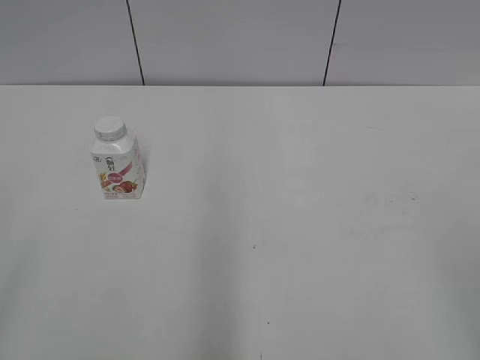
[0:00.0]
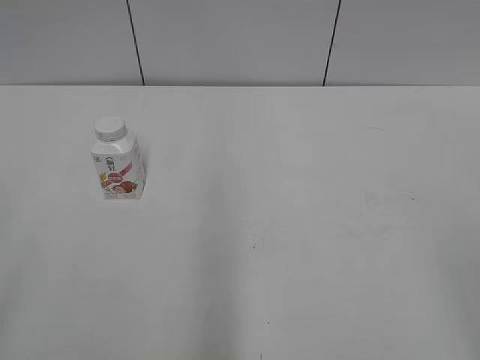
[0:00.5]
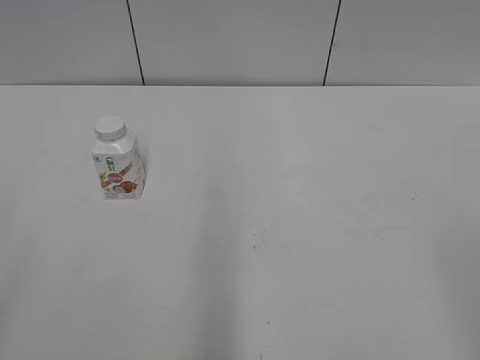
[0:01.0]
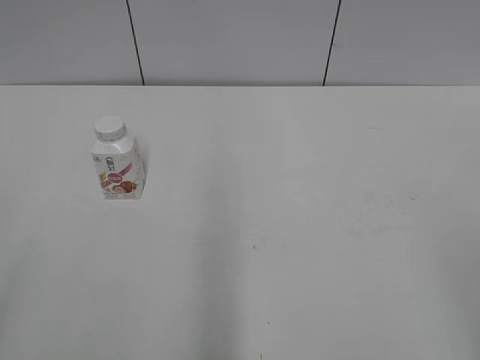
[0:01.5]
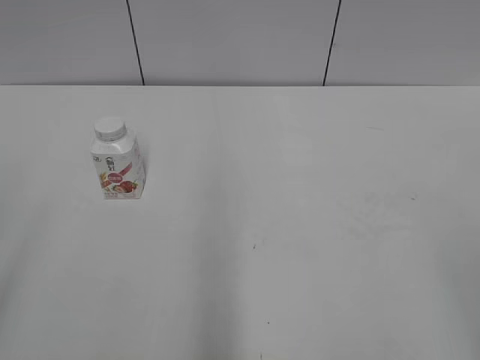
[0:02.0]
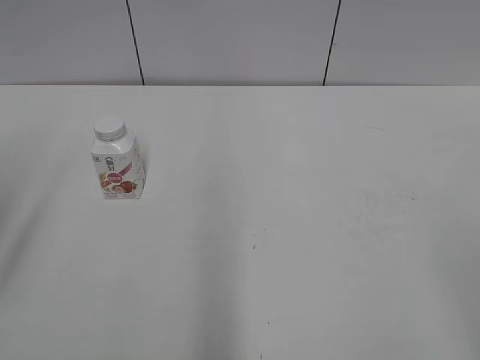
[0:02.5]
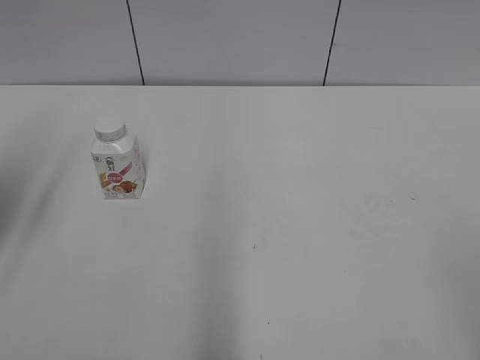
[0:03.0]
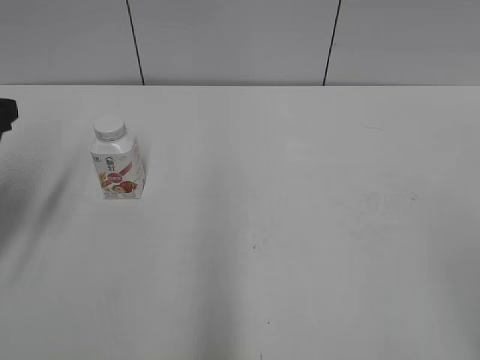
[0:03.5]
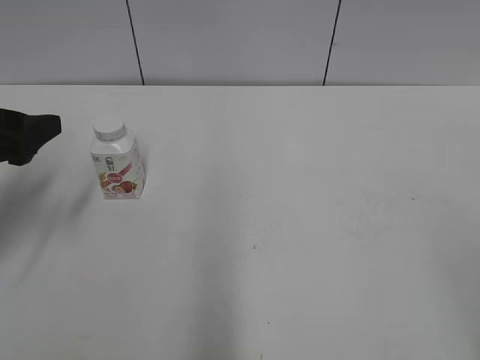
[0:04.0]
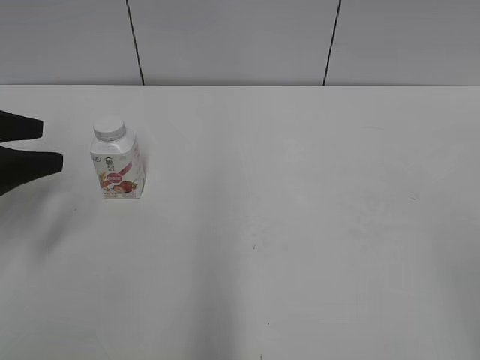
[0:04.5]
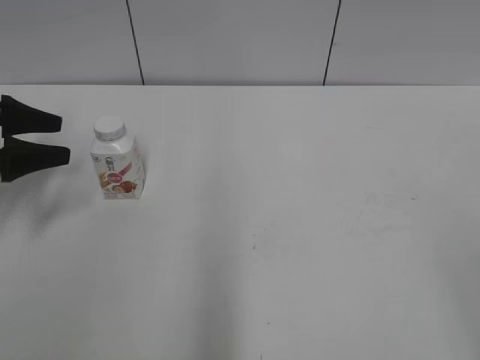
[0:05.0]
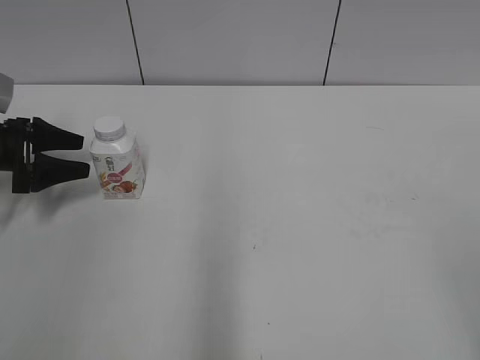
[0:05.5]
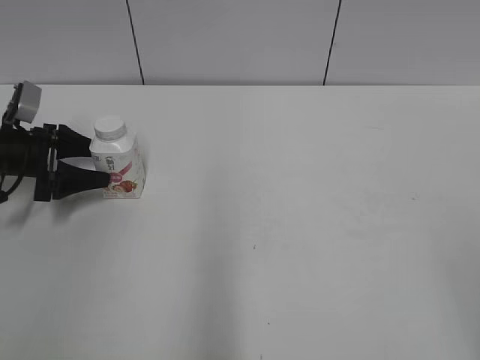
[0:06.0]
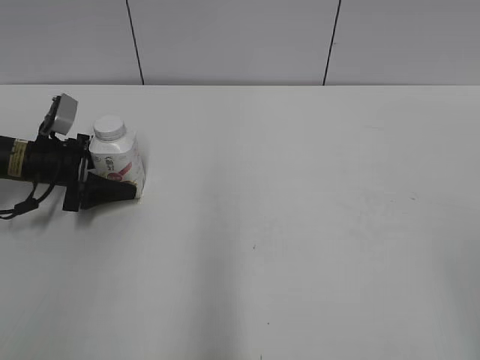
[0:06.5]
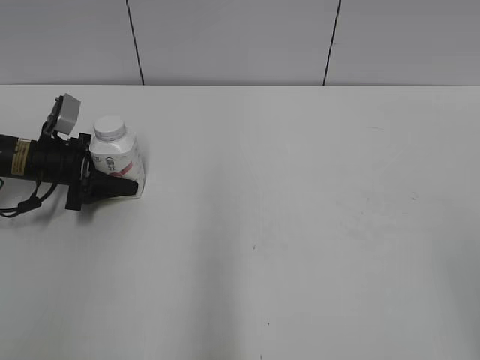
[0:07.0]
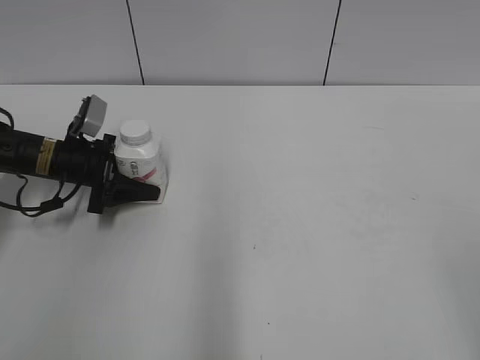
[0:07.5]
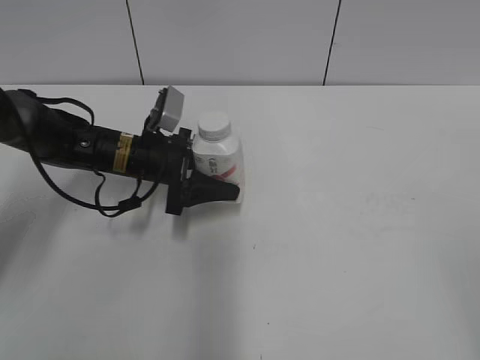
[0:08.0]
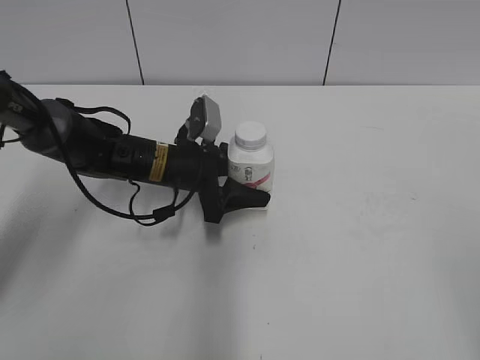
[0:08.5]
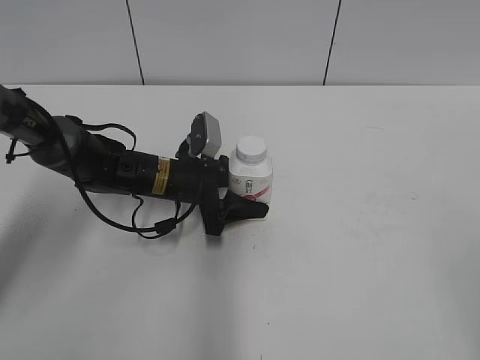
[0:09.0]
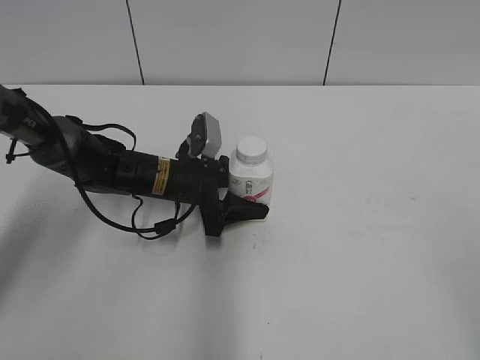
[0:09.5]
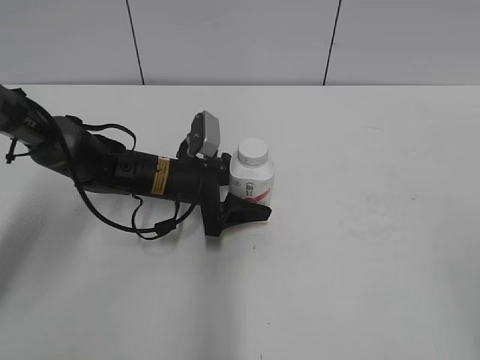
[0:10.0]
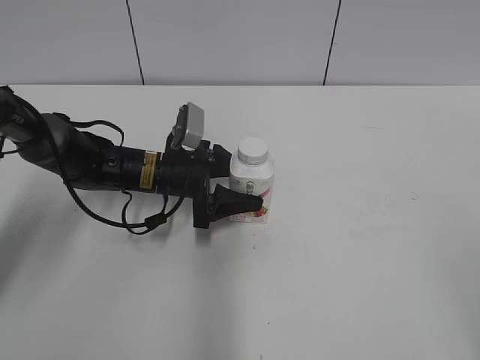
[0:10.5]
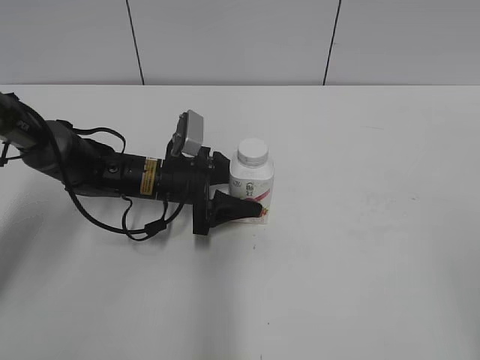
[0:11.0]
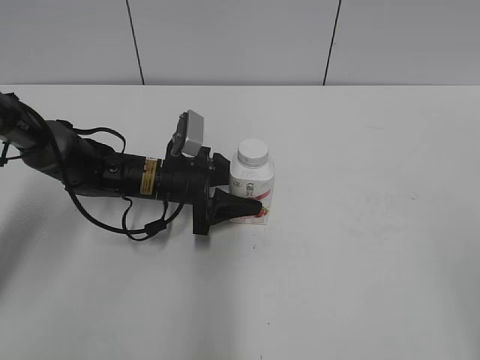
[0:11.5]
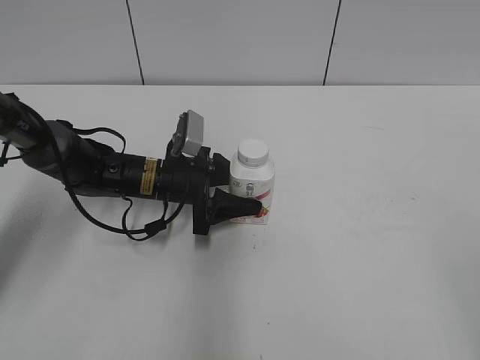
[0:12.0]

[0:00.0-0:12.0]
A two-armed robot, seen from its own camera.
Step, 0:00.0 to 0:07.0: Grasp the bottle and move it to the center of the table with the left gripper.
Step, 0:07.5 to 0:11.0: Lift the bottle and move it to the center of the table with the left gripper.
0:02.0 to 0:04.0: The left gripper is displaced forward and downward by approximately 25 cm.
0:04.0 to 0:06.0: The left gripper moves forward and downward, some 20 cm.
0:06.0 to 0:08.0: The left gripper goes roughly 20 cm to the right, and closes.
0:08.0 to 0:10.0: The left gripper shifts about 5 cm to the right.
0:10.0 to 0:12.0: The left gripper closes.

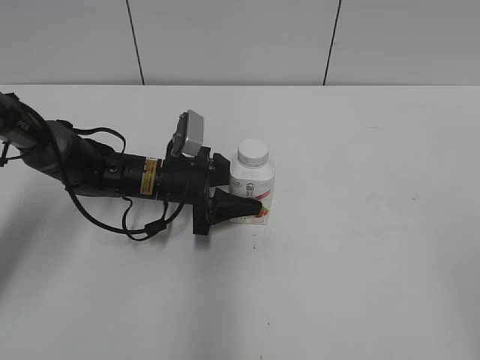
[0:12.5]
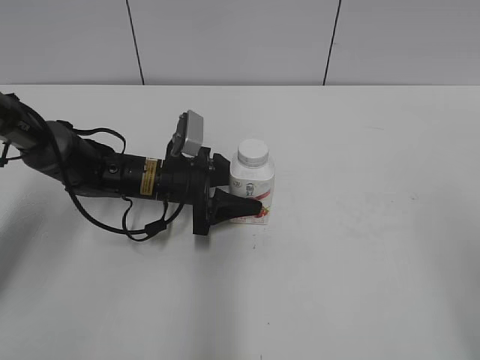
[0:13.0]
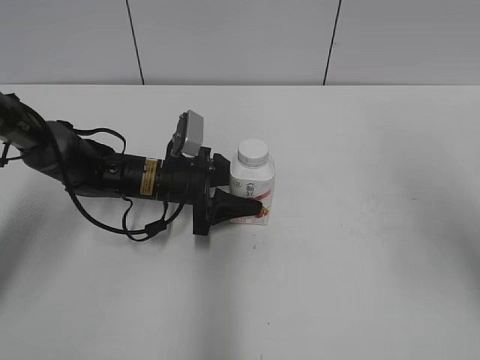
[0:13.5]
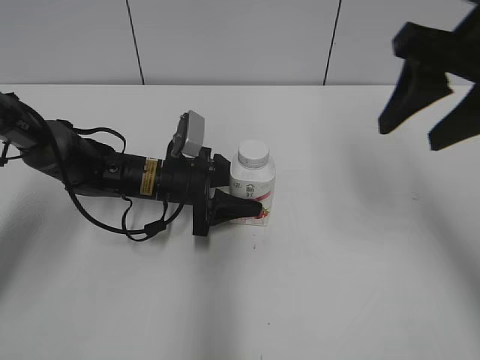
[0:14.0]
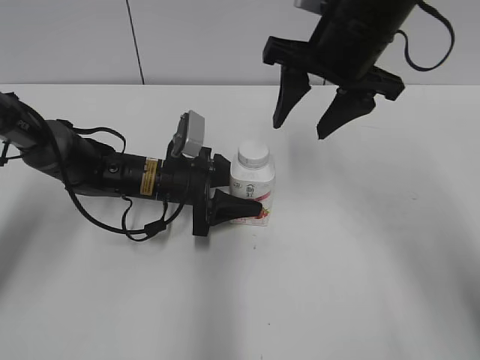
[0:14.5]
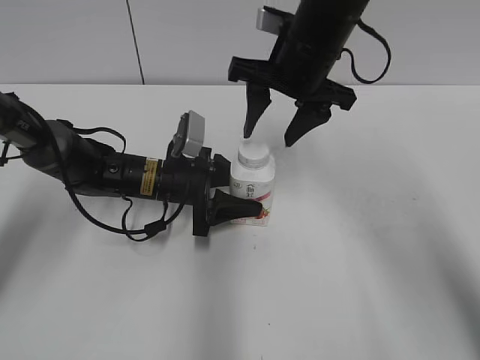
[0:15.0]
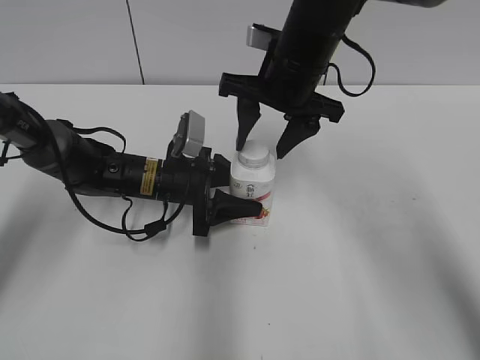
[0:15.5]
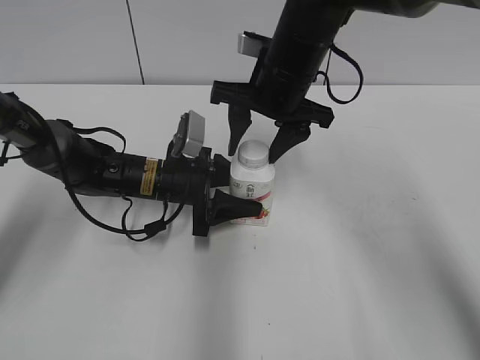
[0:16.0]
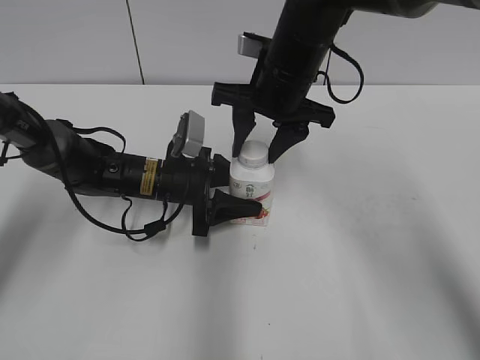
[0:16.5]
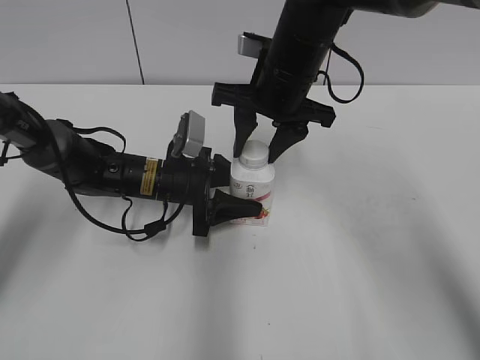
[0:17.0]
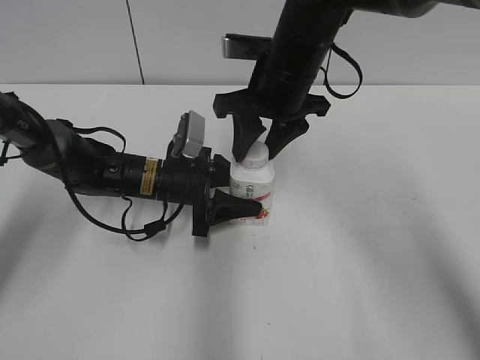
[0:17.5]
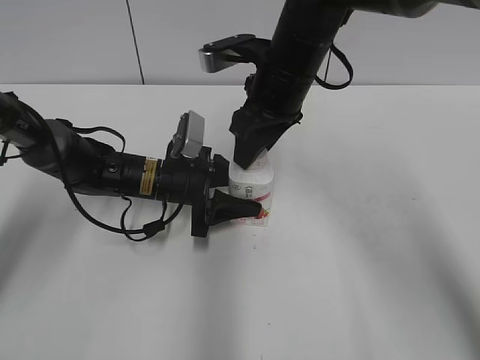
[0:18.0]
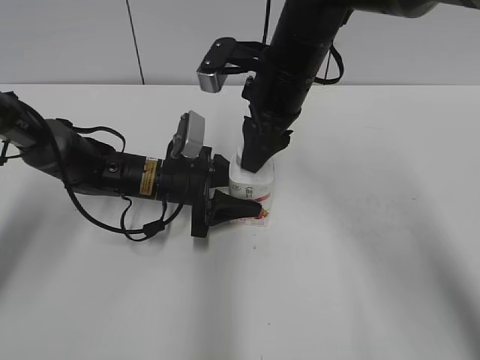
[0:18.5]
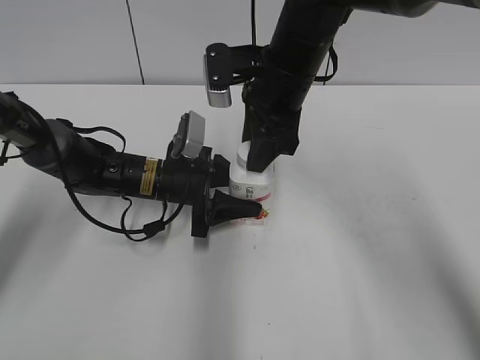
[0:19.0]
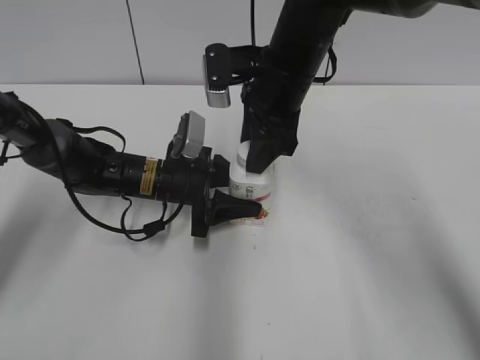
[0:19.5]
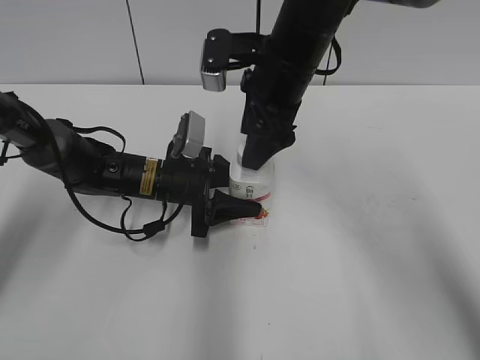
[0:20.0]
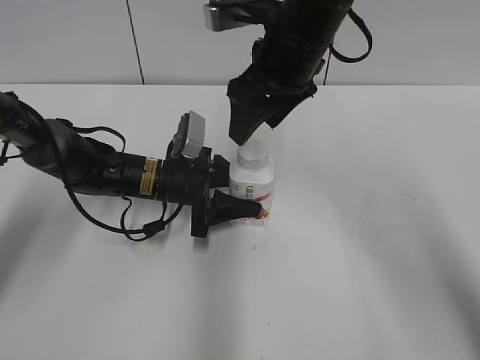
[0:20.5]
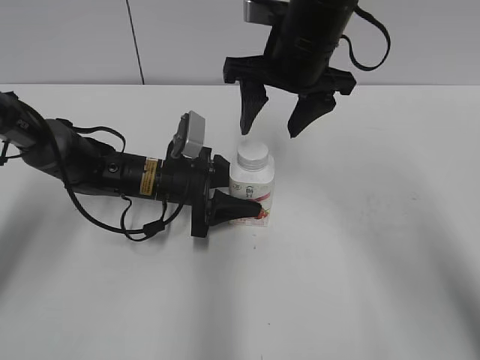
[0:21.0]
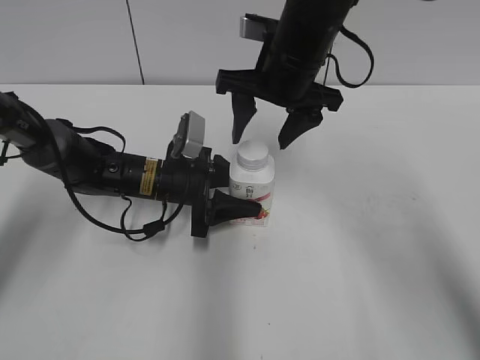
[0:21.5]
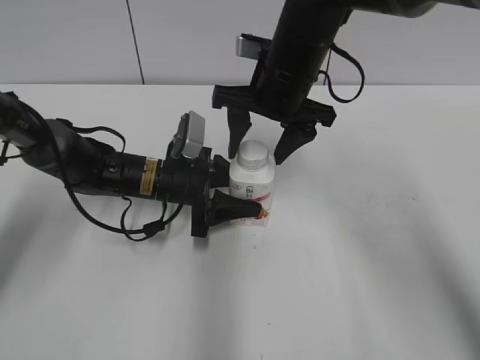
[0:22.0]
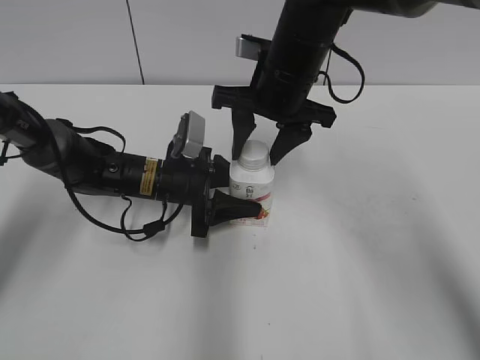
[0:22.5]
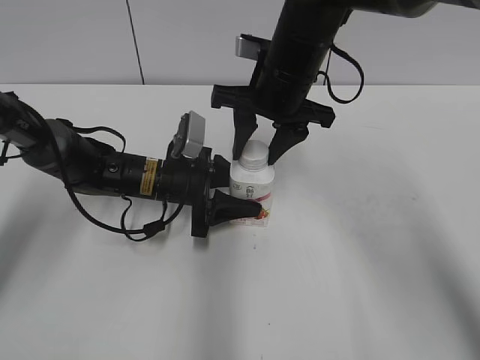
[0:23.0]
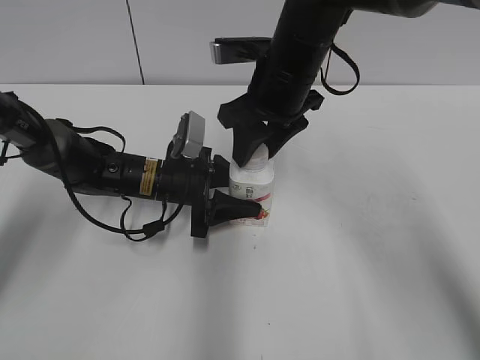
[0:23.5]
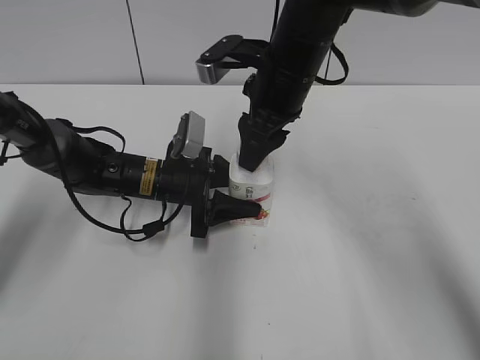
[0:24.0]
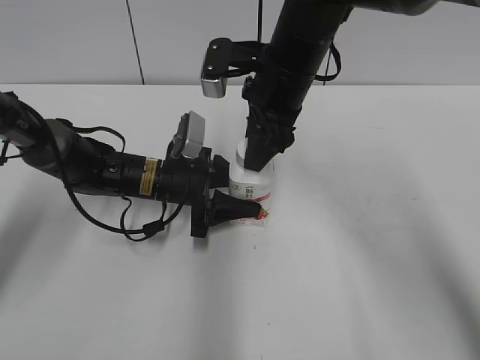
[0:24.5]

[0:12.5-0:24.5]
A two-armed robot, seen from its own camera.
0:12.5 to 0:14.5: The right gripper shifts some 40 cm forward and to the left.
0:14.5 to 0:16.5: The right gripper goes approximately 10 cm downward and to the left, and closes up.
0:18.5 to 0:20.5: The right gripper opens up.
0:20.5 to 0:22.5: The right gripper closes up.
0:22.5 to 0:24.5: The right gripper closes its fingers.

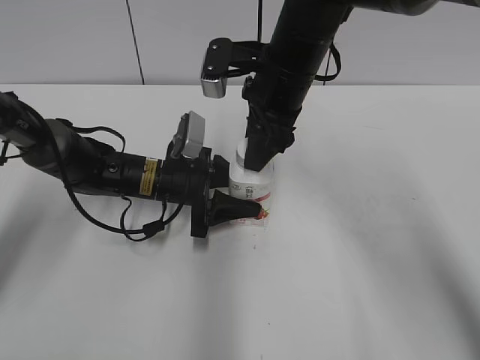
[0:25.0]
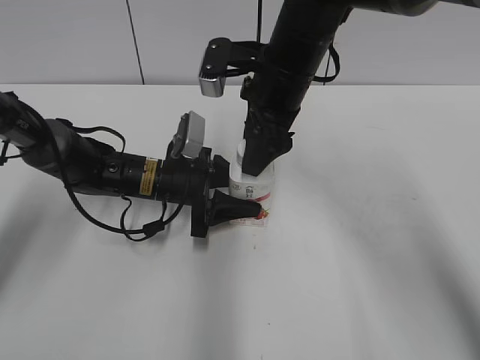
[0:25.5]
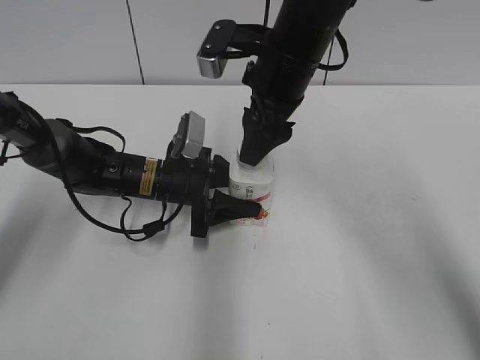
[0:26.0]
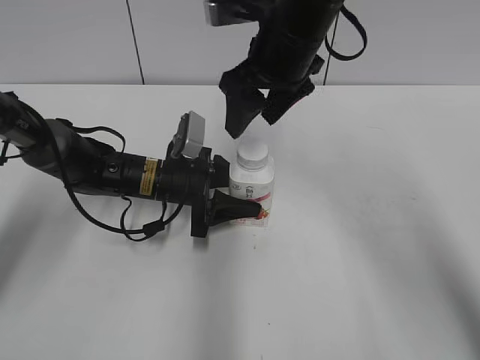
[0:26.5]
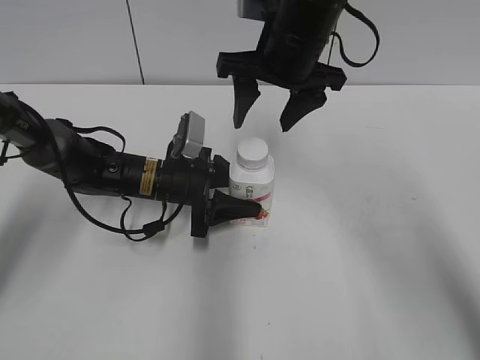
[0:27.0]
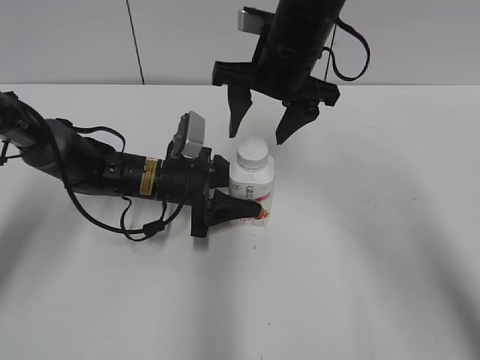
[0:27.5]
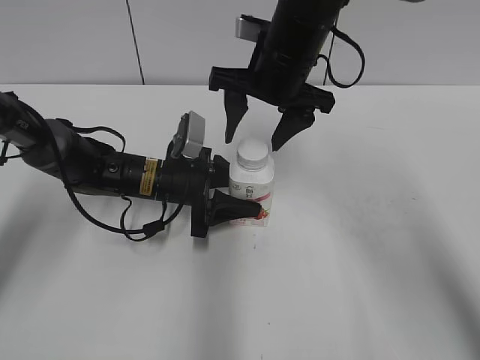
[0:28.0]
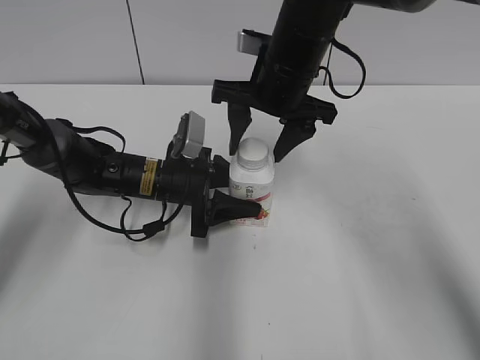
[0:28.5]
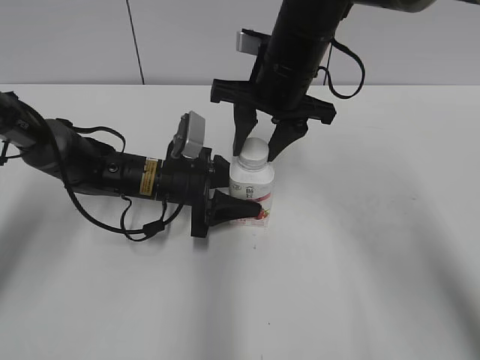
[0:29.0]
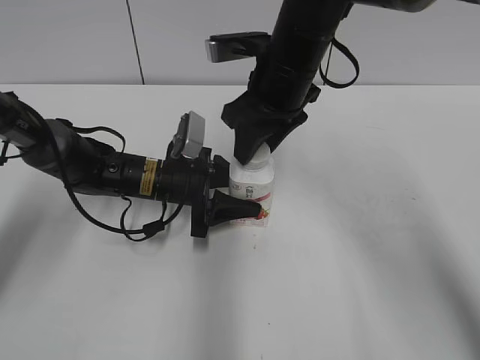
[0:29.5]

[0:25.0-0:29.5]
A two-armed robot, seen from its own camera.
0:25.0 to 0:27.0: The right gripper opens its fingers.
0:27.0 to 0:29.5: The right gripper closes up.
